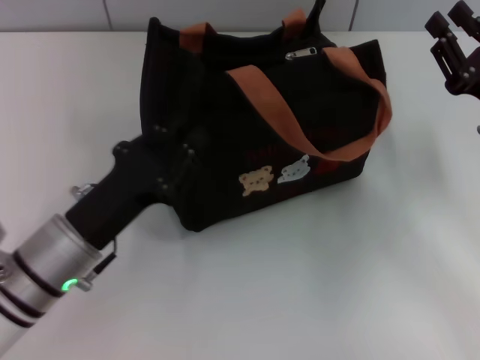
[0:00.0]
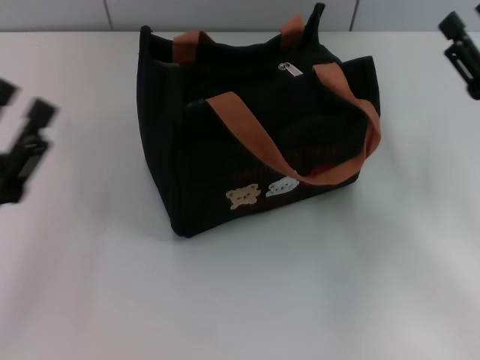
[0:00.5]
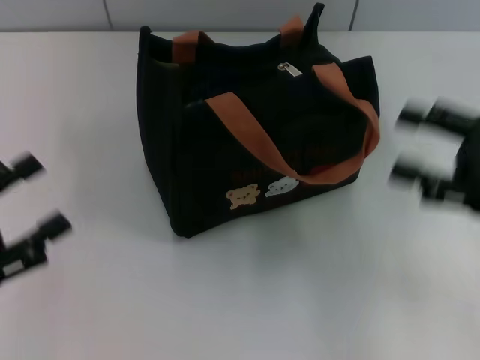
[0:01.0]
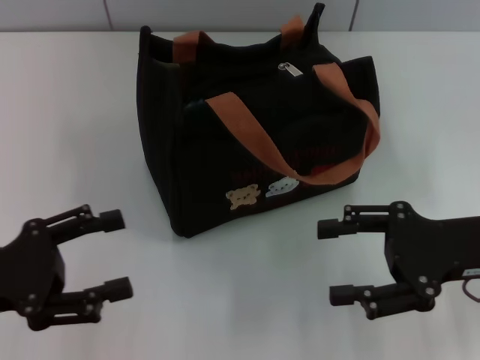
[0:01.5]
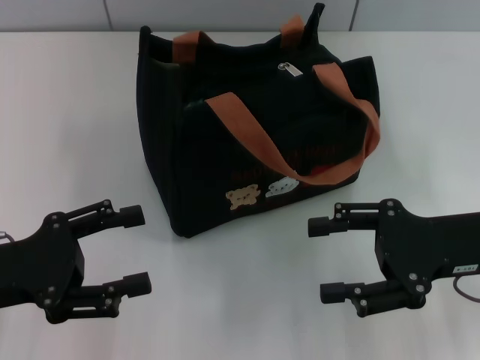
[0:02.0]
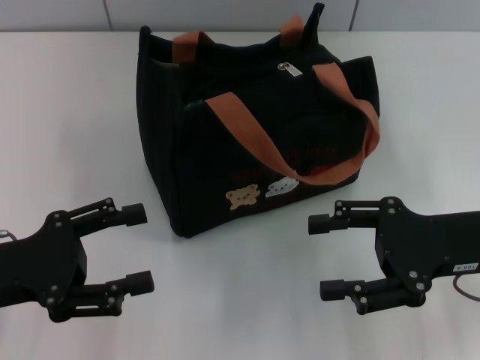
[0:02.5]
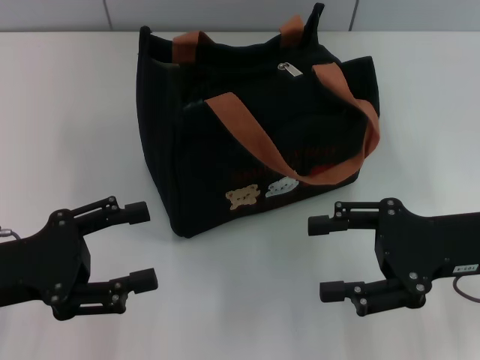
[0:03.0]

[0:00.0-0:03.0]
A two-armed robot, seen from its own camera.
0:00.0 to 0:01.5: The right gripper moves about 5 cm, and opens up. Meanwhile the left gripper goes about 10 cm to the left and upward, and opens its fingers.
0:01.5 to 0:03.0: The grippers move only a little.

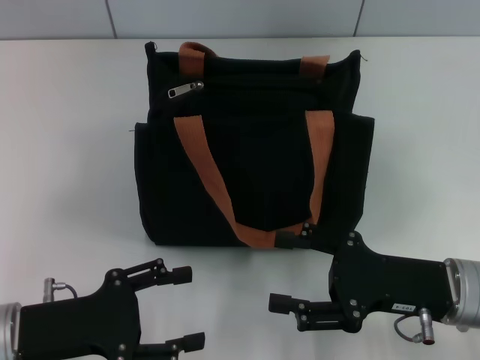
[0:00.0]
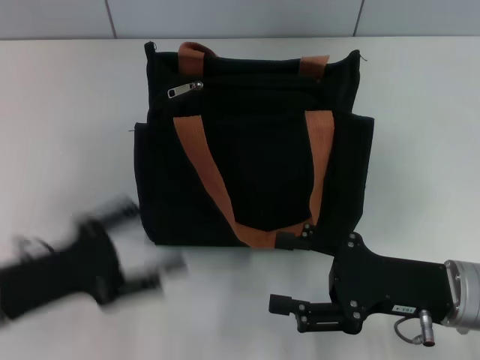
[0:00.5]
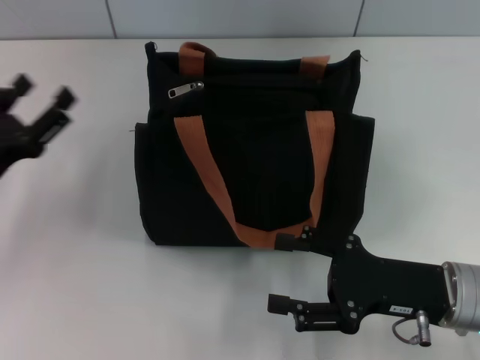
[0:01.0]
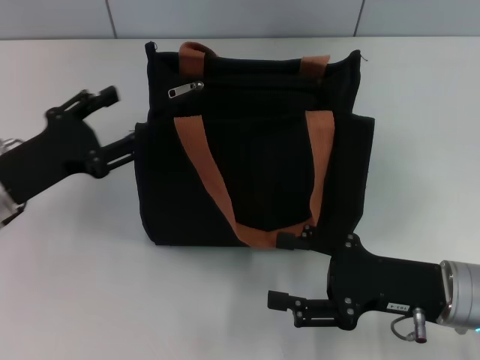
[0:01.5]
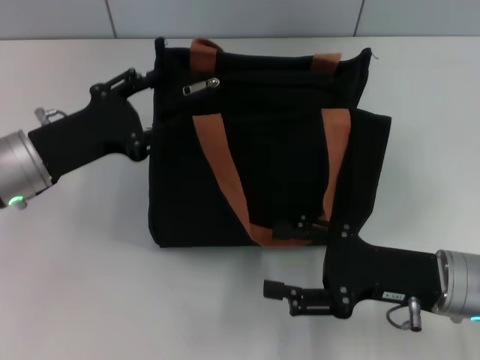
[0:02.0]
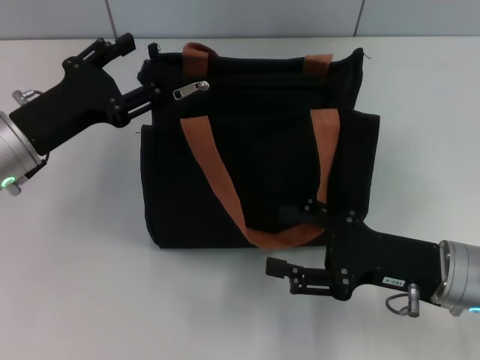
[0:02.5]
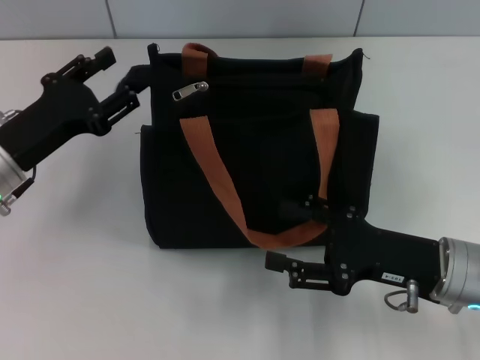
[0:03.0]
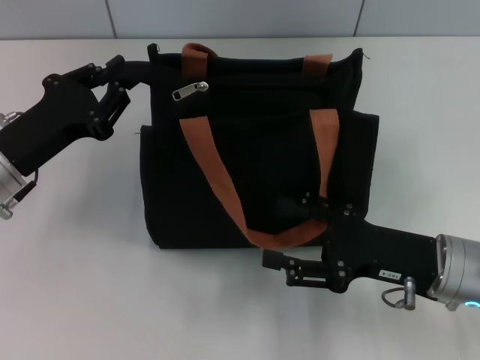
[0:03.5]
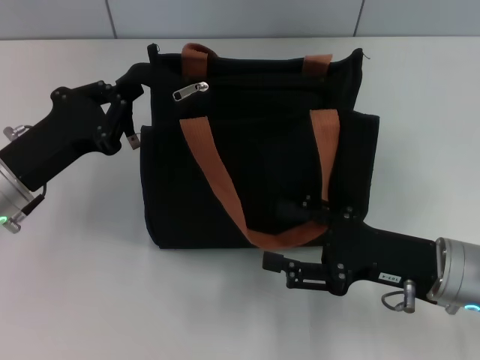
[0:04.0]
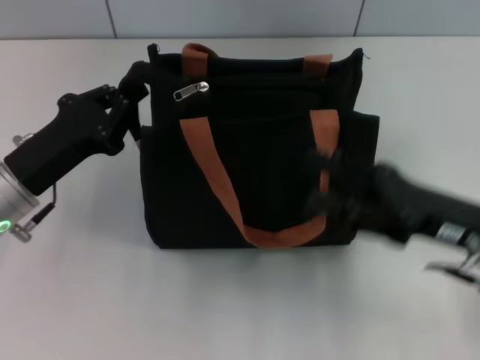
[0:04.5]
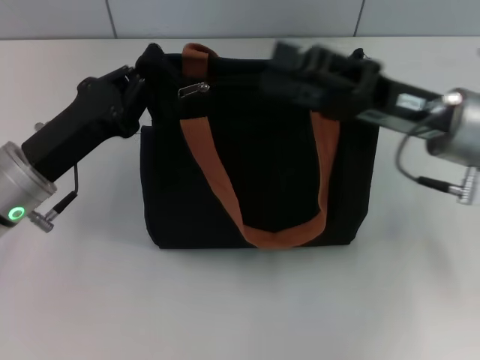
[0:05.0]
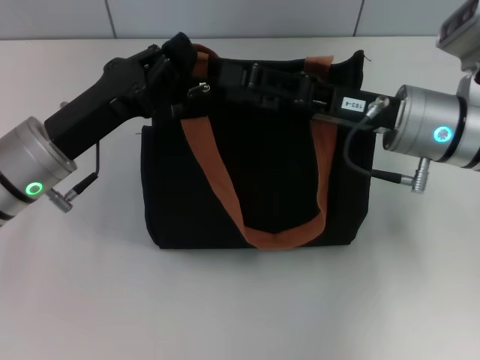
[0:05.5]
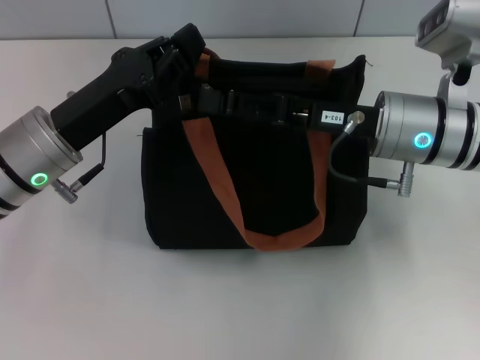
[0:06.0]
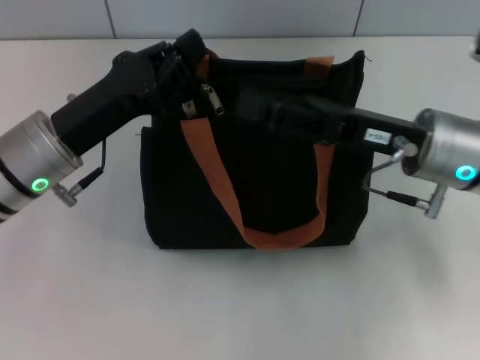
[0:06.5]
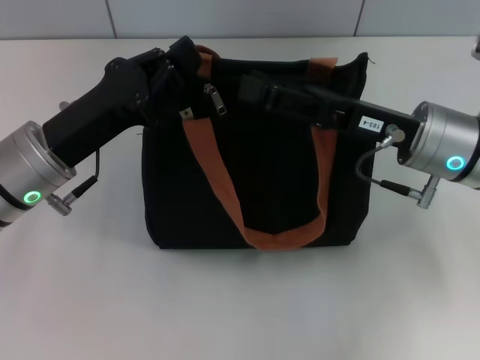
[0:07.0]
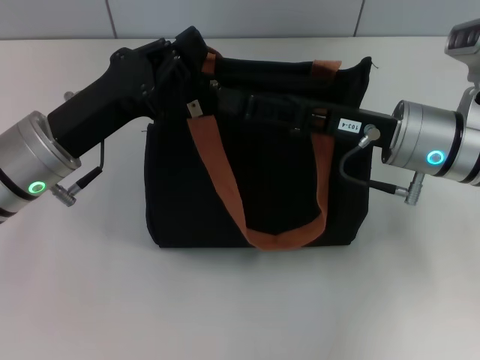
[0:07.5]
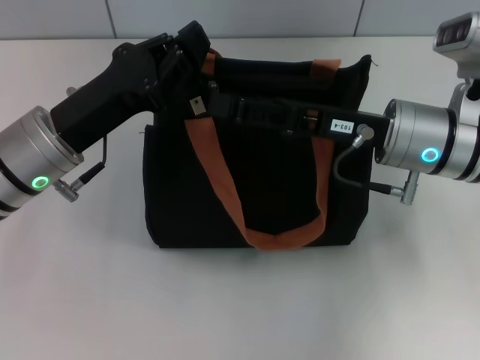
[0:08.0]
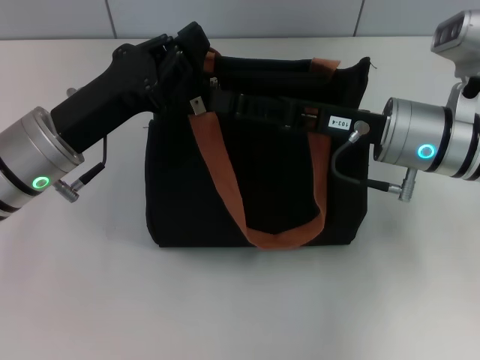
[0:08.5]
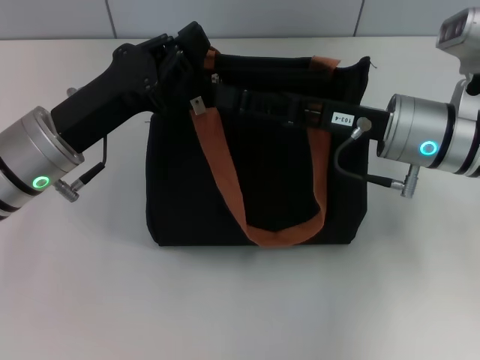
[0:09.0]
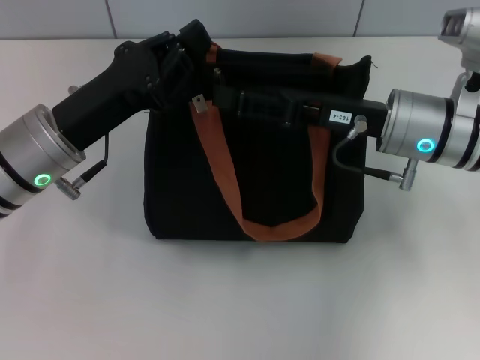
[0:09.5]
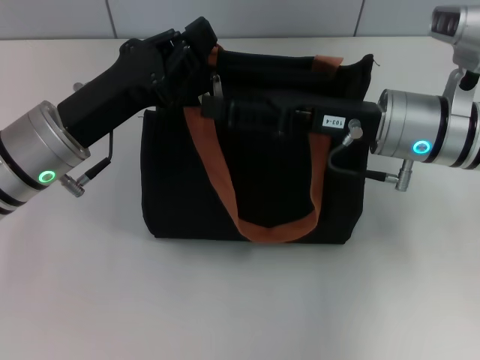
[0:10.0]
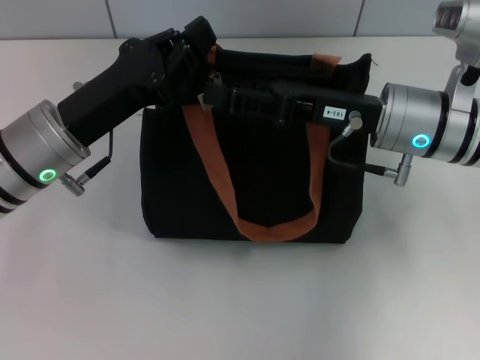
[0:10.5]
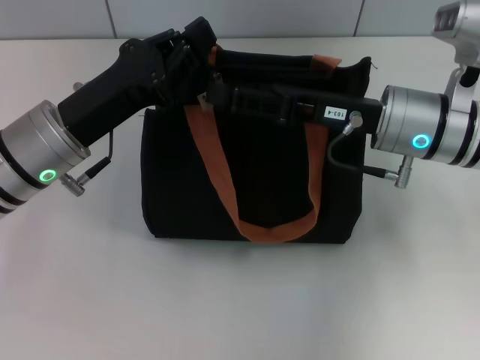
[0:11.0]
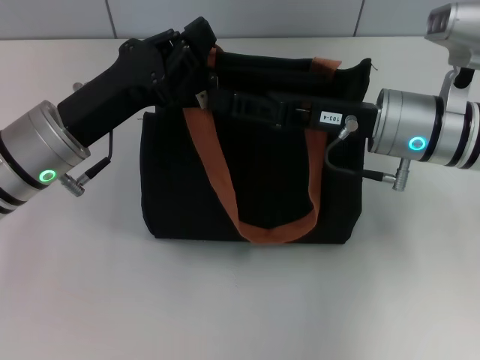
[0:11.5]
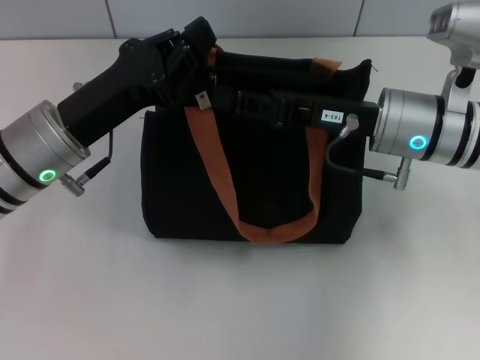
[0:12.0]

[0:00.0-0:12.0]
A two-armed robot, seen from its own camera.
0:00.0 to 0:02.0: The left gripper travels forward by approximately 10 cm.
0:02.0 to 0:04.0: The left gripper closes its fingers.
0:04.0 to 0:06.0: The right gripper moves forward, upward and to the left, some 15 cm. The left gripper shifts by about 5 cm.
0:06.0 to 0:10.0: The grippers move only a little.
0:10.0 to 0:12.0: The right gripper closes.

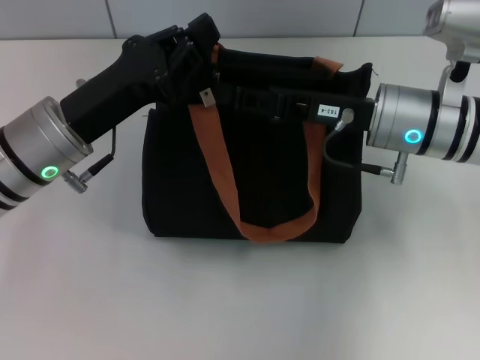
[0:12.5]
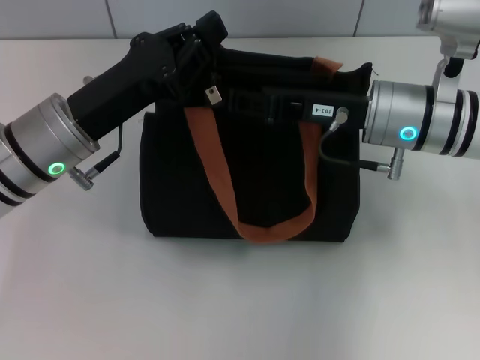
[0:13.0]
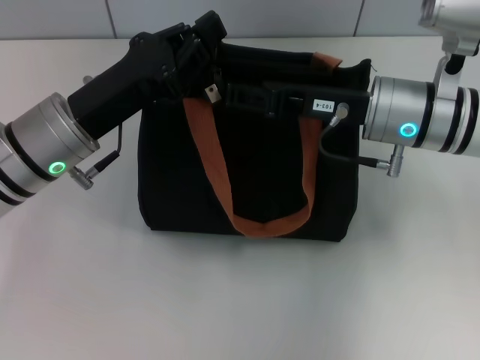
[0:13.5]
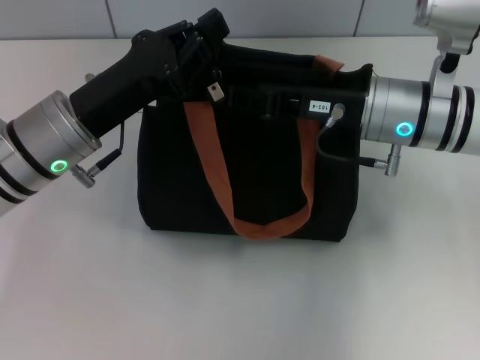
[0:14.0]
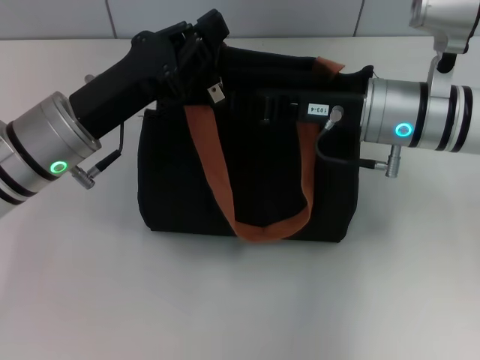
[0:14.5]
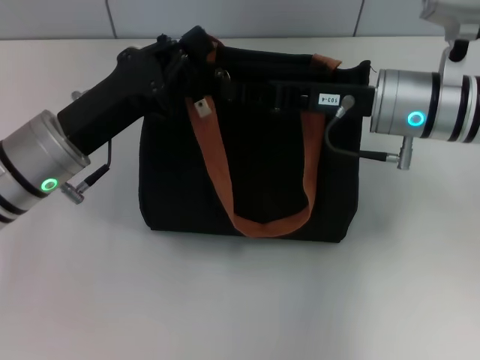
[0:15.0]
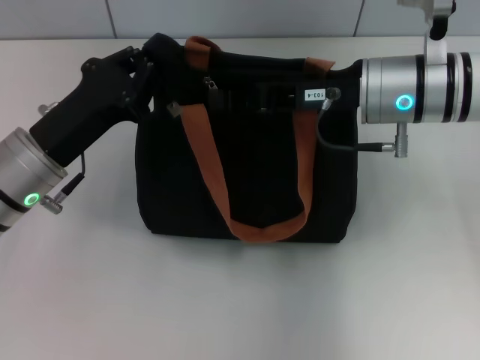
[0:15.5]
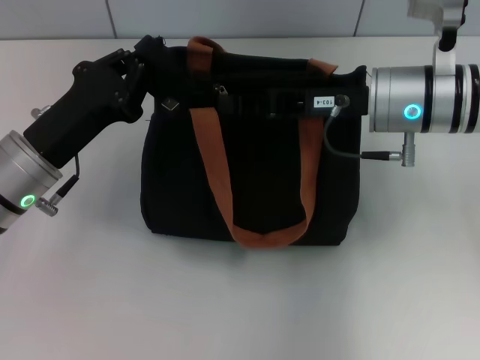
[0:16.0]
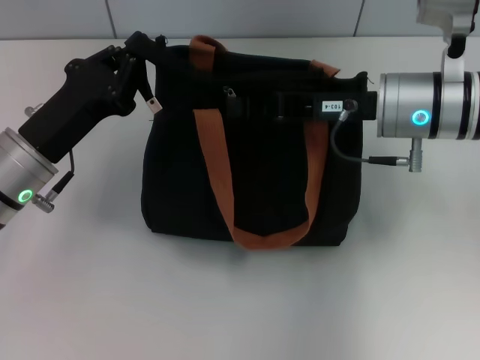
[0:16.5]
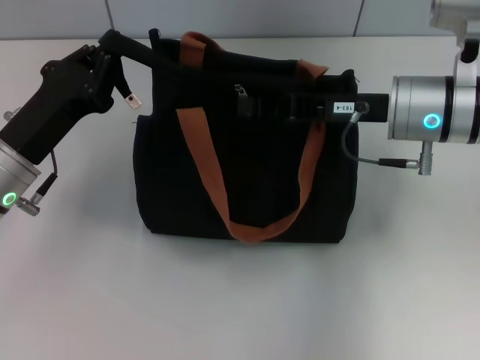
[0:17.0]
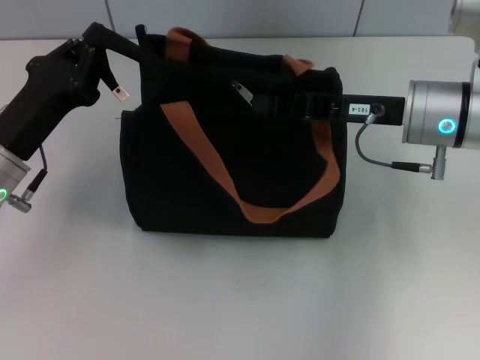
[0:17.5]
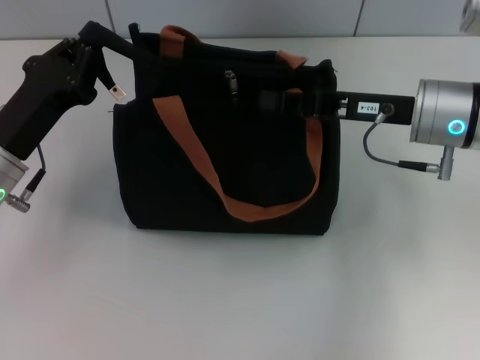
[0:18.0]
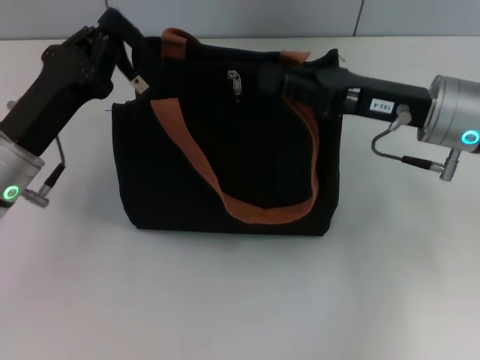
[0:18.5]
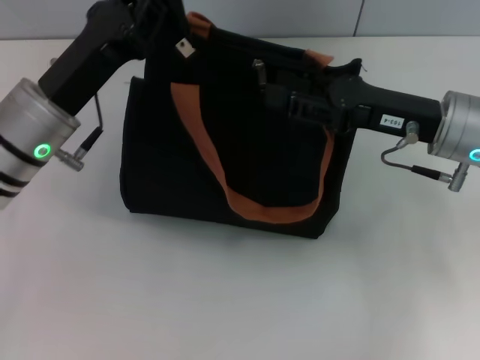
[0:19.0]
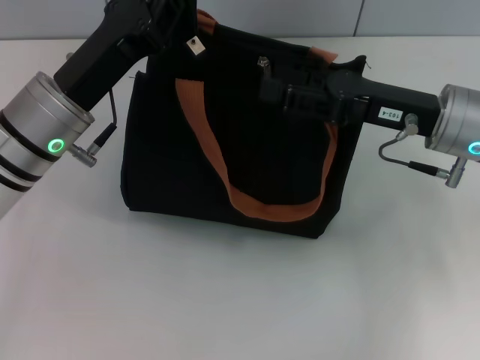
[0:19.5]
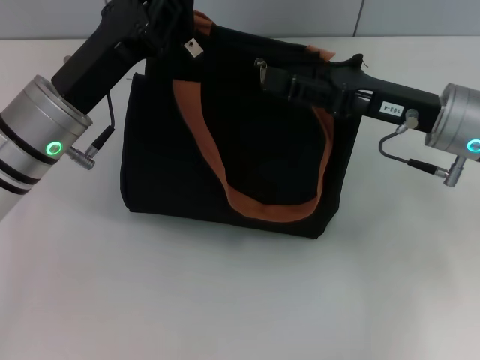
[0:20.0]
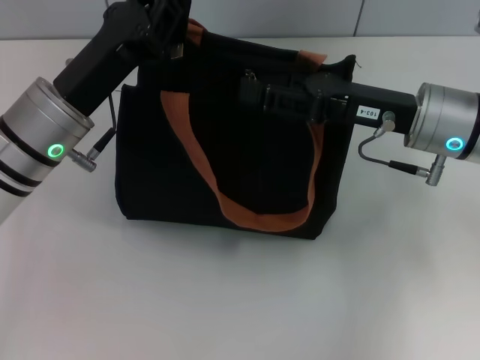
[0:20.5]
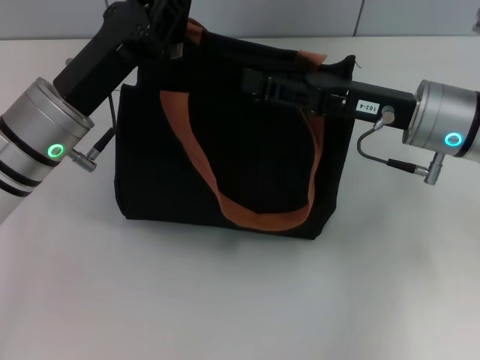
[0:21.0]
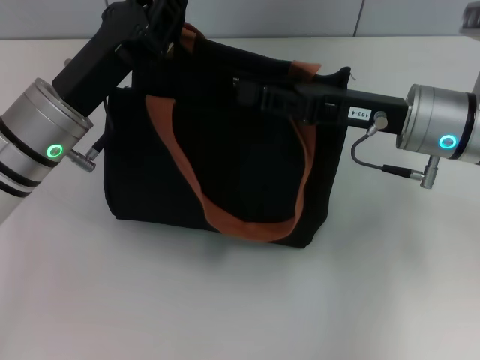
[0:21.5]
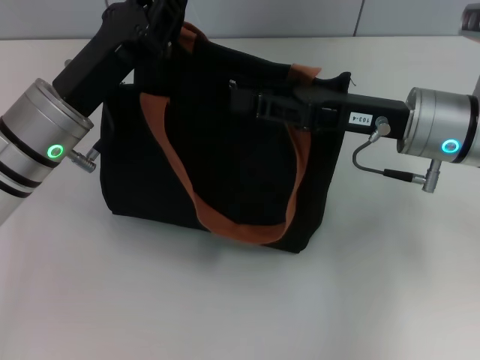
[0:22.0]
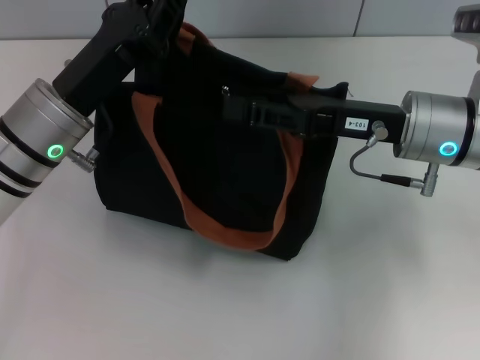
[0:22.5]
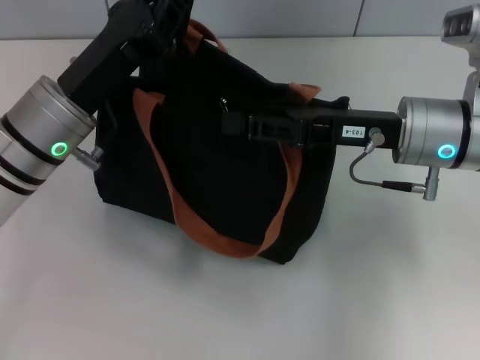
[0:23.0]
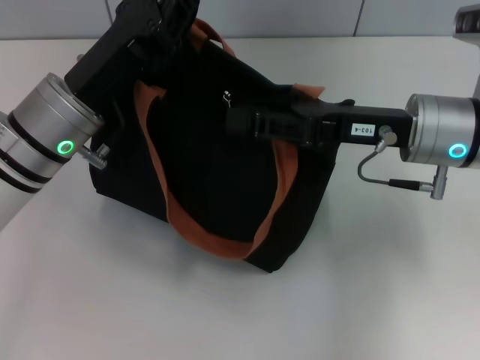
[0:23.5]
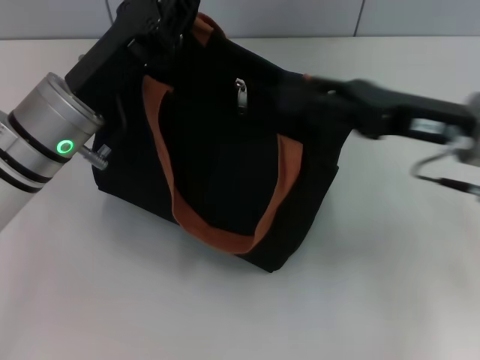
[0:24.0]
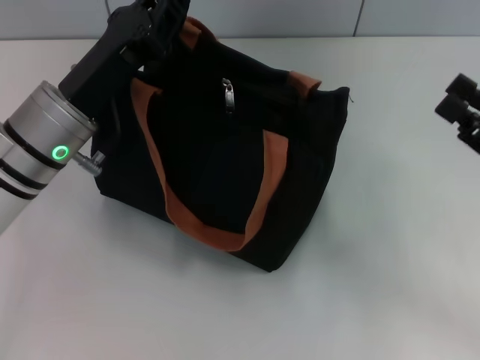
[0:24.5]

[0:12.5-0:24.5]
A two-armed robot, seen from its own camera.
0:12.5 to 0:14.5: The two grippers keep their place.
0:14.5 to 0:16.5: The left gripper shifts by approximately 5 cm.
0:18.5 to 0:20.5: The left gripper ends up approximately 5 cm from where it was, while the right gripper opens its fingers.
0:20.5 to 0:22.5: There are only small adjustments of the grippers.
0:22.5 to 0:24.5: The right gripper moves to the right and backward, about 15 cm.
